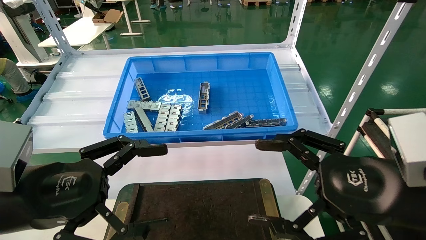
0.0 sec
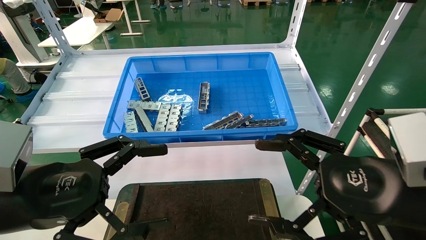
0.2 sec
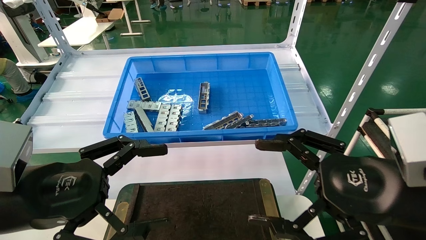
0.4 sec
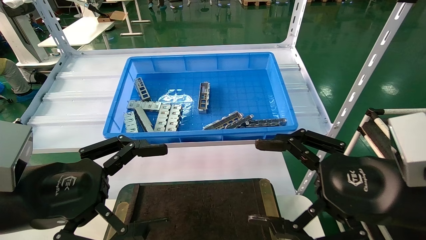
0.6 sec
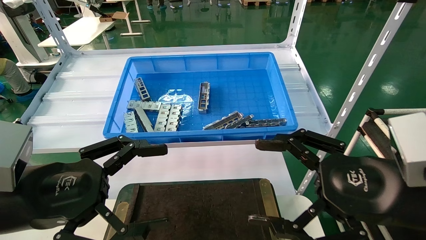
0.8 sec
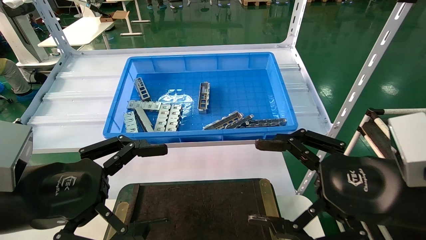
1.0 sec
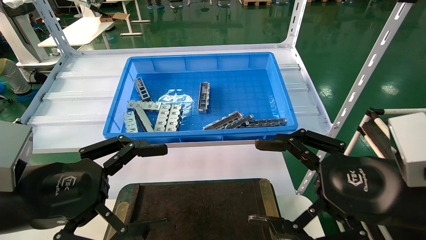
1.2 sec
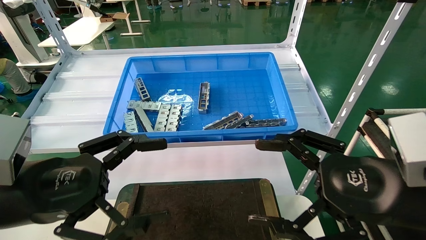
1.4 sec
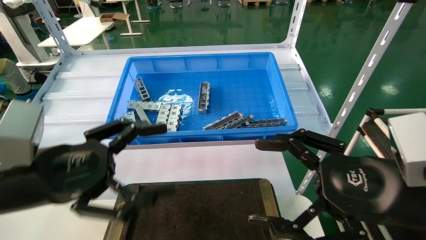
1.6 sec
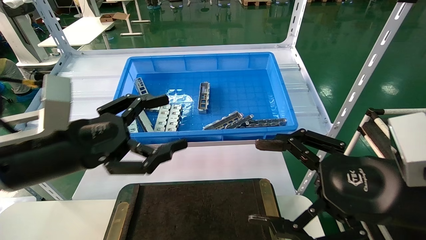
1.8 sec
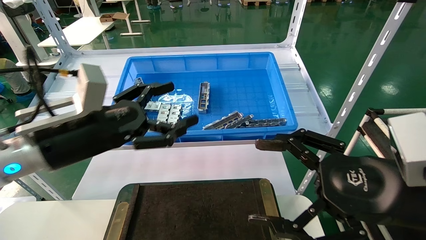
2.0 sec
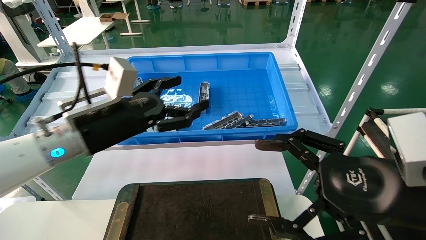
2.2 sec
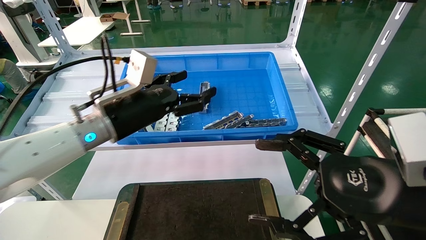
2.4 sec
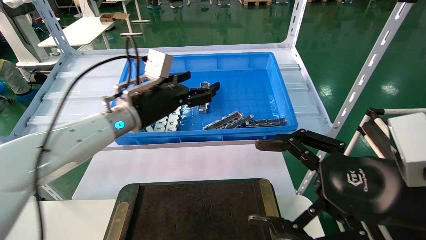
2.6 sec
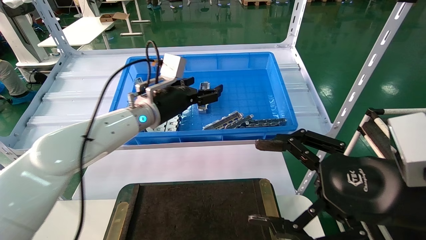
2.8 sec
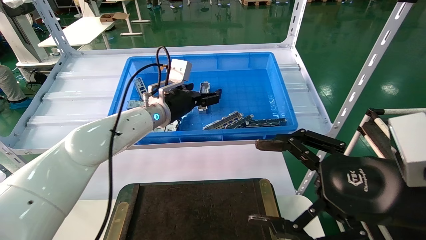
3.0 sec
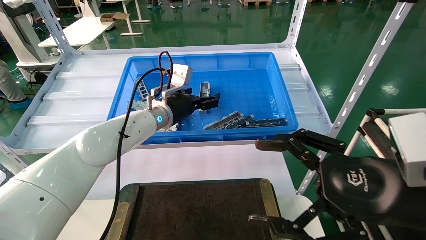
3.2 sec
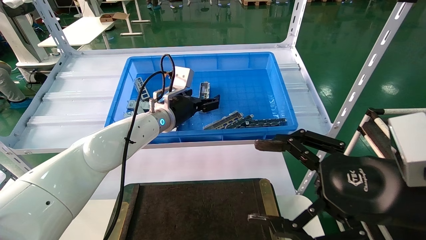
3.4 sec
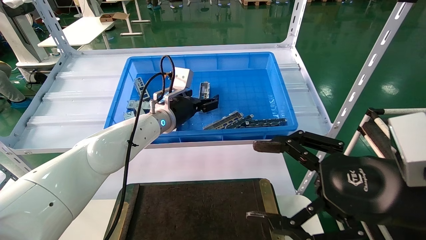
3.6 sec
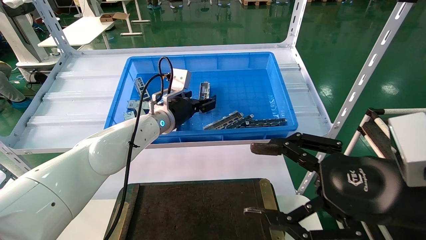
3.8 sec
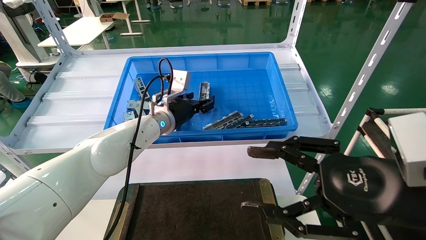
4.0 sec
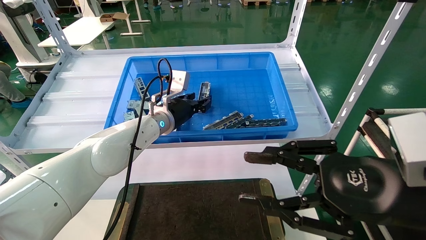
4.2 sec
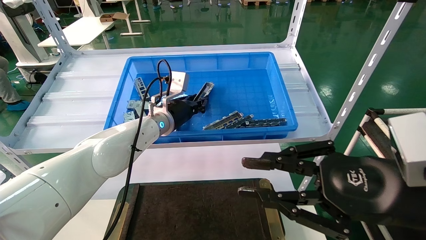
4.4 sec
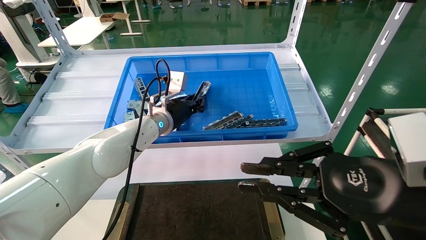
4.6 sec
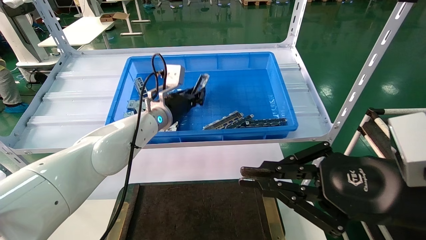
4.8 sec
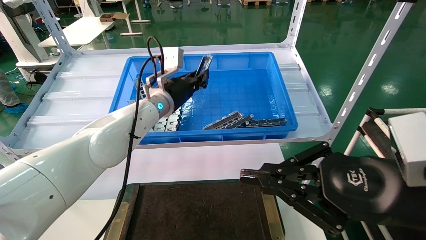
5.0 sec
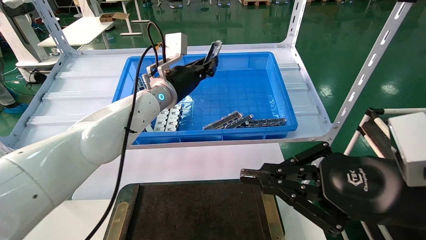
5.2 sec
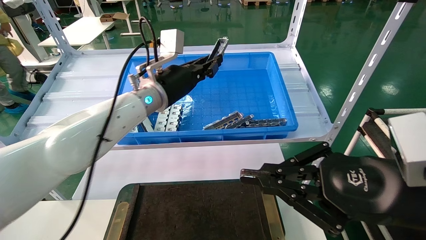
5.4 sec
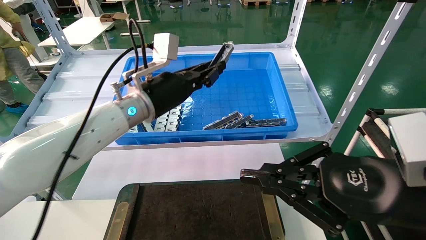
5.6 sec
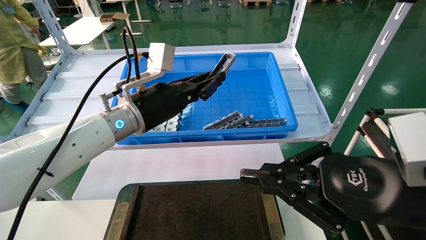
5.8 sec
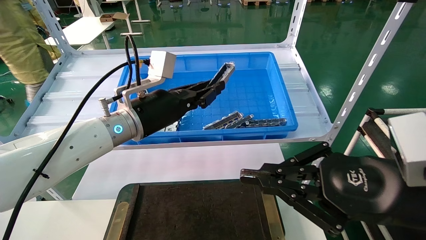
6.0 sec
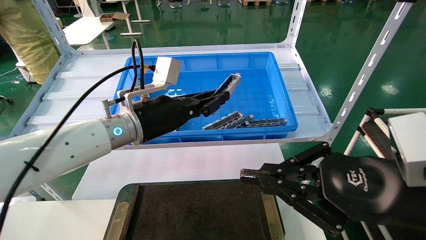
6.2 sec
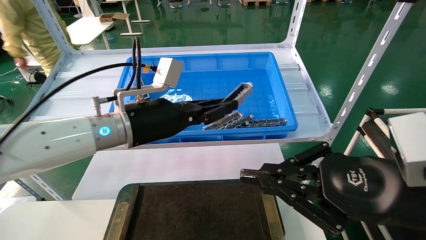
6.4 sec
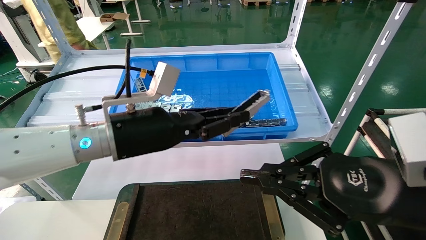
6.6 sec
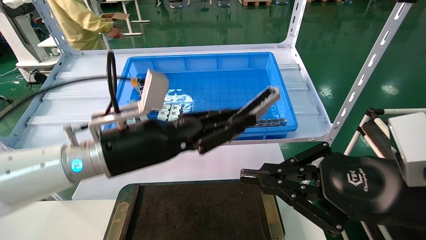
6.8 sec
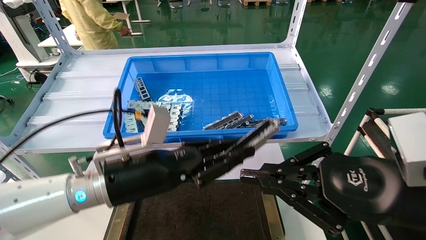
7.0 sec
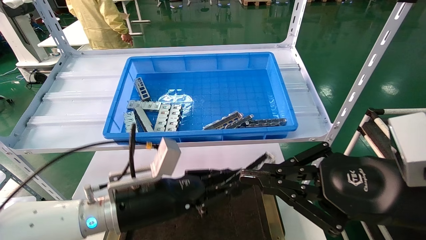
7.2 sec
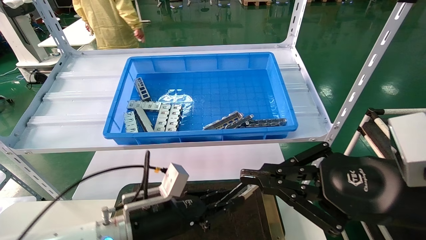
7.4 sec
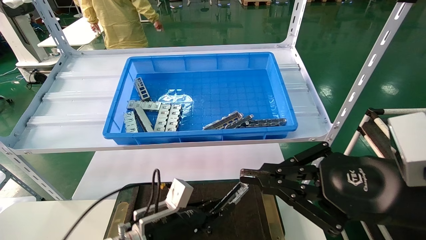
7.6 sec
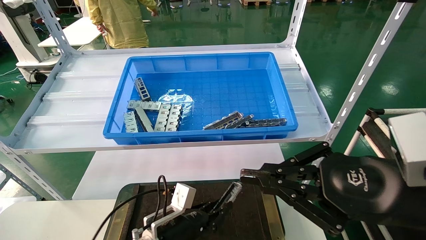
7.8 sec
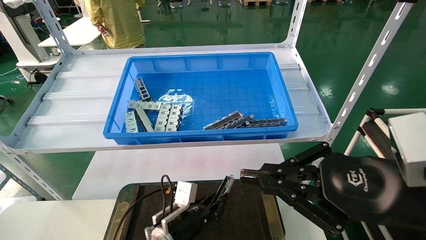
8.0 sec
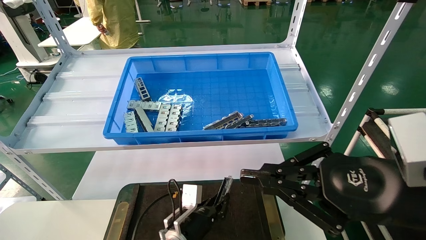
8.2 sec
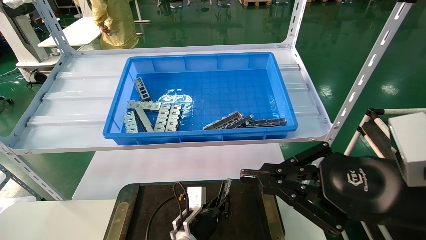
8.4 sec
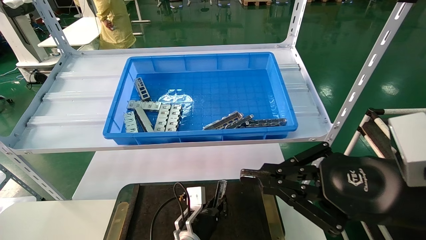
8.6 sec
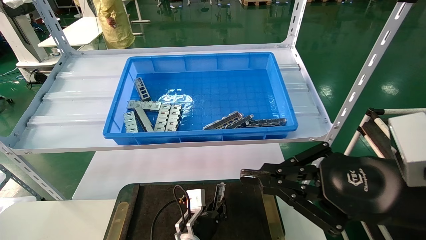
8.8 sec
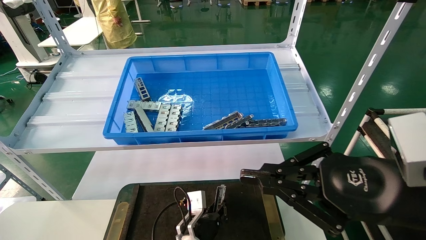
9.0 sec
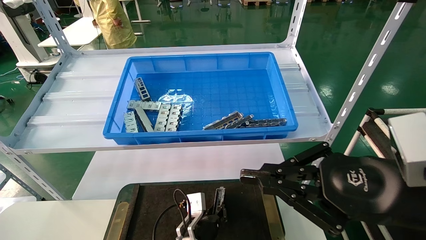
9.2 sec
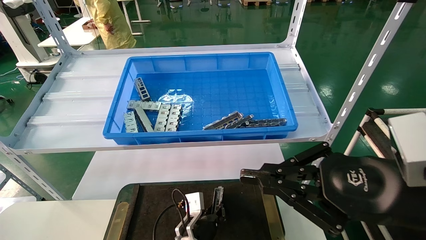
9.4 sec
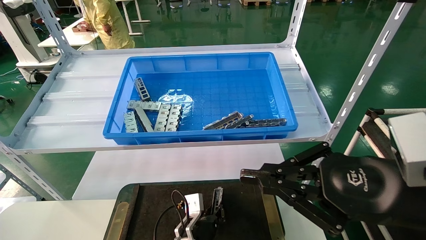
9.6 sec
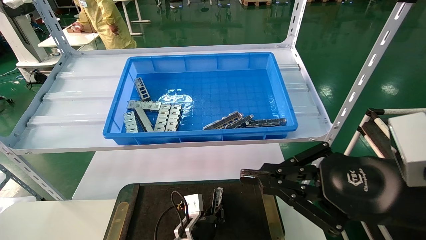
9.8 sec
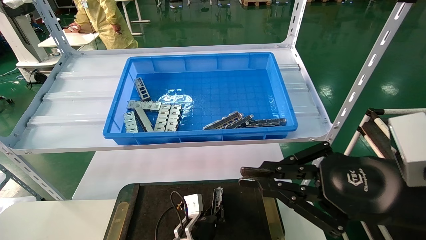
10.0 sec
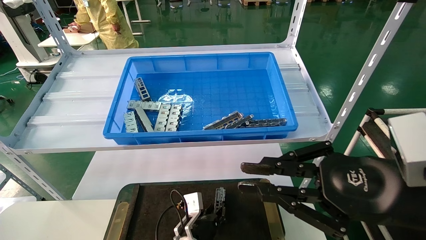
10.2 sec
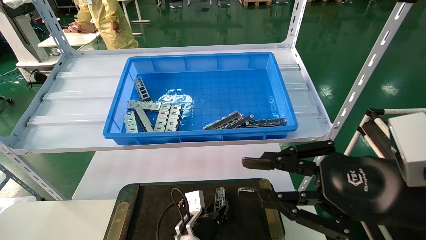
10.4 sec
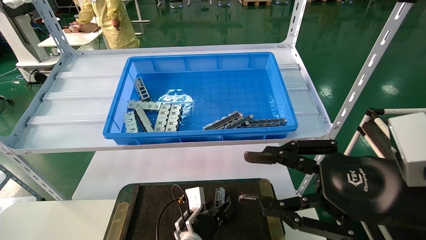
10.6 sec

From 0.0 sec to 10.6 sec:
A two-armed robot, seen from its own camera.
Task of the whole recording: Grasp the part with one hand and place it on the black container.
Step, from 1.6 sec to 5.4 sec: Pick up the front USB bracket from the feeding area.
Step, from 5.6 sec to 10.4 sec: Place the front USB bracket into the box.
From 0.0 sec to 1.6 sec: There are only small adjustments of the grippers.
From 1.6 sec to 3.0 sec: The left gripper shifts roughly 30 cm forward and to the right.
From 3.0 sec to 4.6 sec: The left gripper closes its fingers. The right gripper closes.
From 4.6 sec to 6.0 sec: The left gripper travels backward by some 15 cm.
From 6.0 sec to 7.6 sec: The left gripper heads downward, covering roughly 25 cm.
From 7.6 sec to 9.0 sec: The left gripper is displaced downward and to the right by approximately 15 cm.
From 9.0 sec to 10.6 sec: The left gripper opens up.

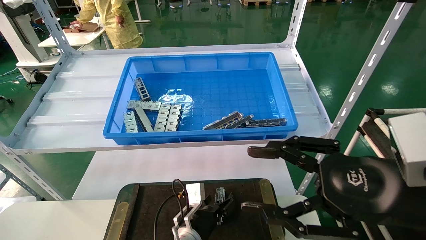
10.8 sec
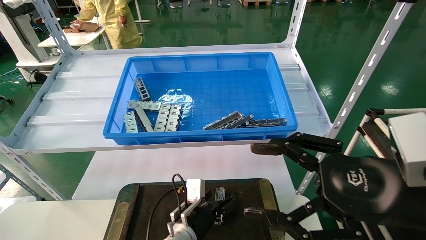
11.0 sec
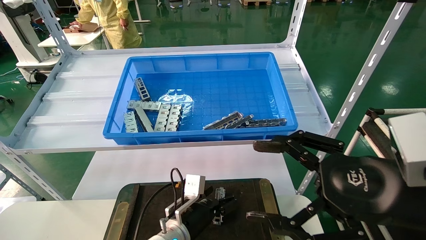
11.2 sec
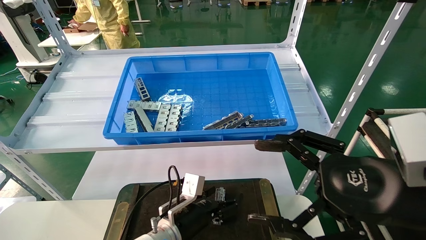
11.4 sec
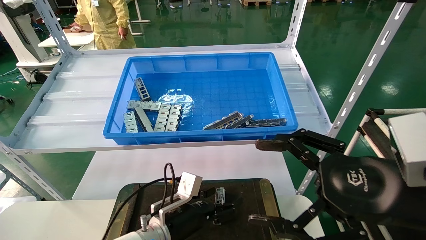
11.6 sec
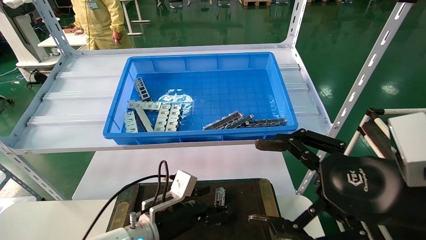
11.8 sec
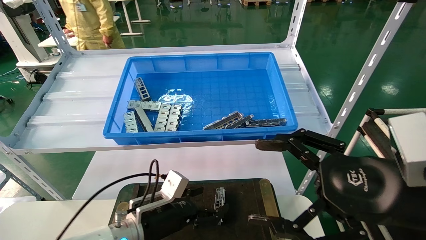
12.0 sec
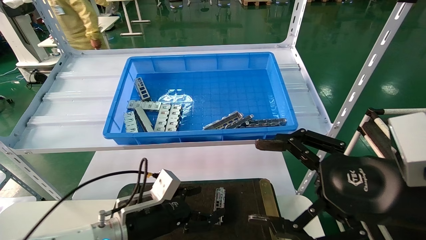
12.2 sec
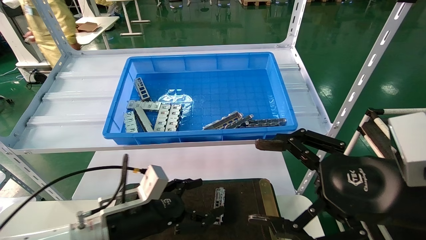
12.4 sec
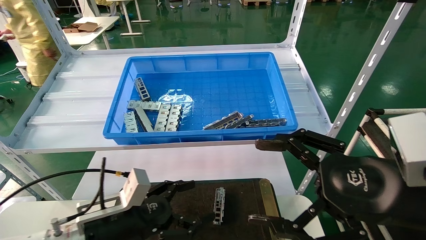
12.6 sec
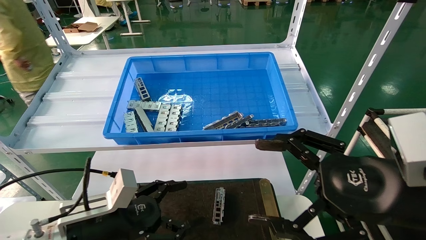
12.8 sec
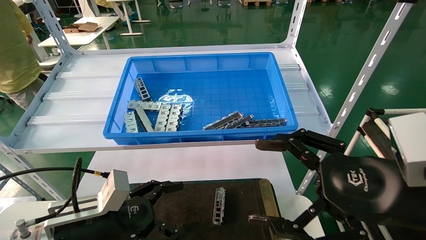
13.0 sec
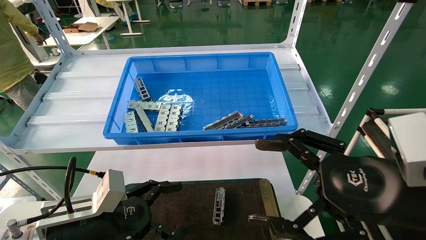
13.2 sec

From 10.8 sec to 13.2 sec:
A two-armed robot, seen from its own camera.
Task of the whole recording: Grasp the part with one hand and place it on the black container.
From 10.8 sec to 12.0 sec: The right gripper opens up. Meanwhile the left gripper moves to the left, upward and backward, roughly 15 cm, and opens.
From 12.0 sec to 13.2 sec: The left gripper shifts some 15 cm to the left, backward and upward.

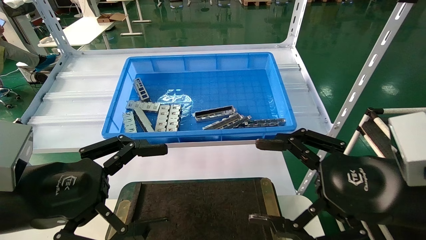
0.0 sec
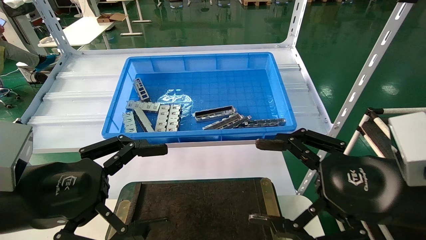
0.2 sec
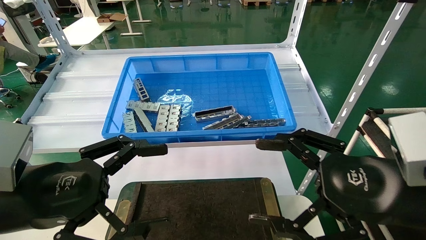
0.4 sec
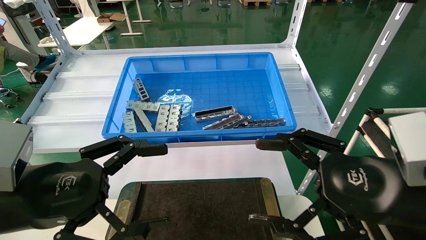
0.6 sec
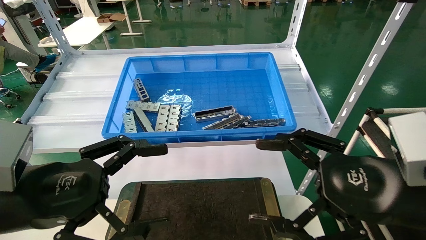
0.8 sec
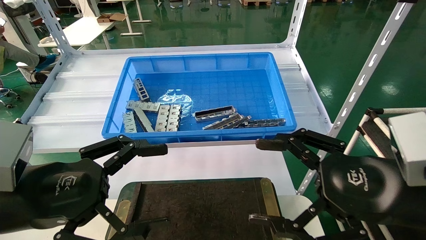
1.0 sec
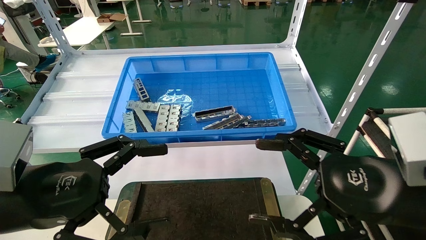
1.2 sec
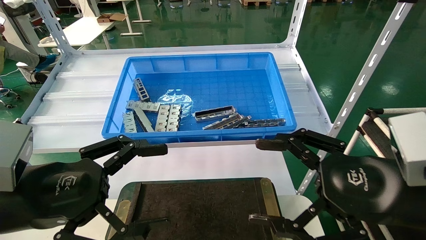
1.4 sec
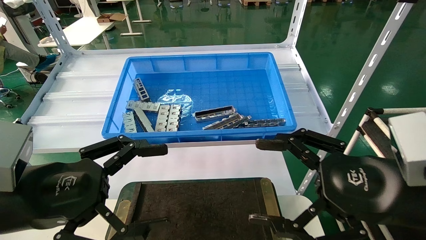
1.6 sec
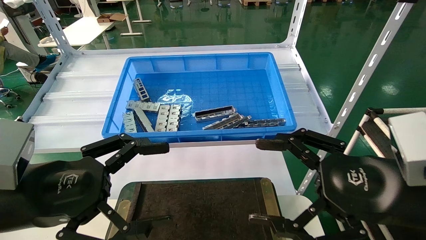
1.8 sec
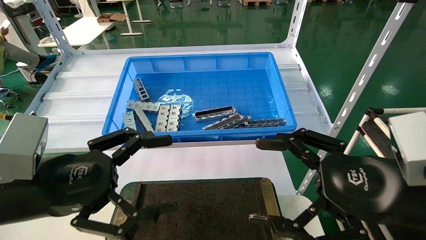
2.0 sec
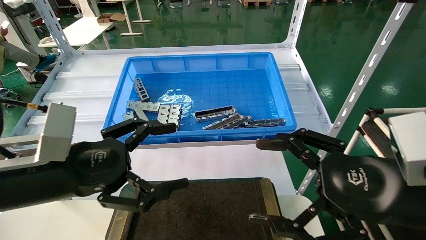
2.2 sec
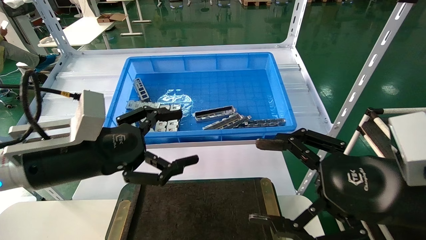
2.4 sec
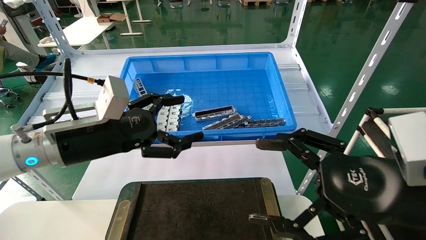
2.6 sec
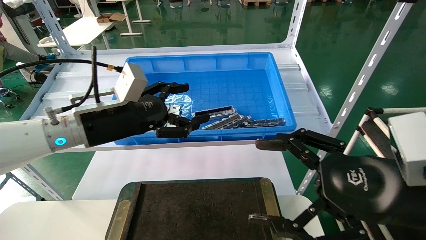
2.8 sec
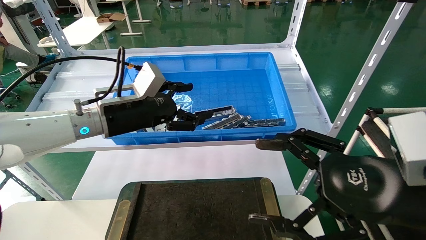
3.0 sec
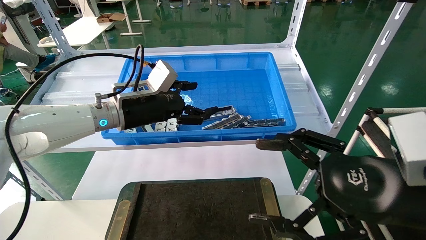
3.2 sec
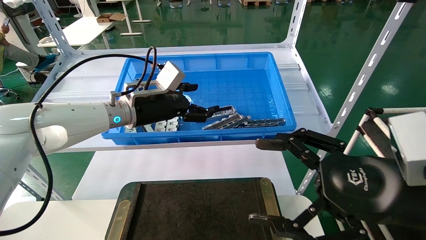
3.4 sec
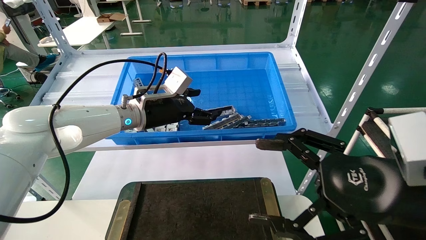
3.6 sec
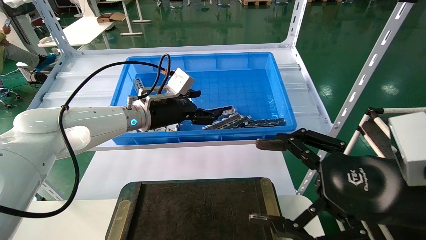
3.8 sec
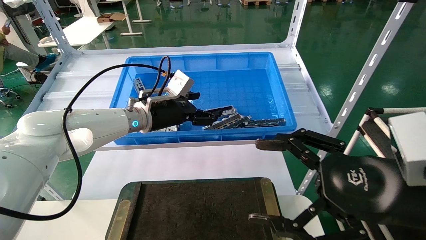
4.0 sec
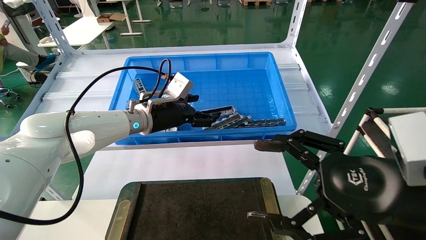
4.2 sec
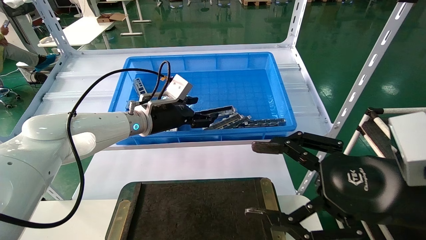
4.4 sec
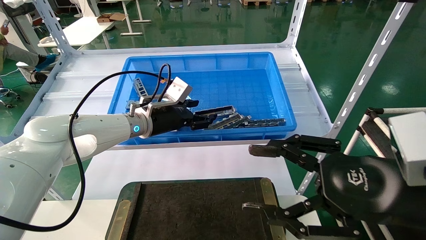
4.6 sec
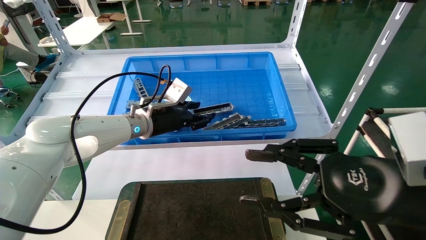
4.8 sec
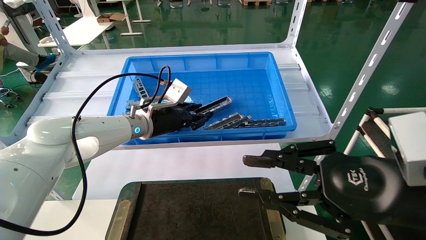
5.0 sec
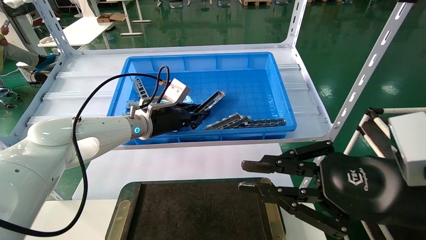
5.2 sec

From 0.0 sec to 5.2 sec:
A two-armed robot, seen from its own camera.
Task of the whole recording: Grasp the part with one hand and place it on the black container.
From 0.0 sec to 1.8 sec: Both grippers stay put.
From 1.8 sec to 3.4 sec: The left gripper moves forward, approximately 25 cm.
From 3.4 sec to 5.2 sec: The right gripper closes its fingers; the left gripper ends up roughly 5 cm from where it was, and closes up.
